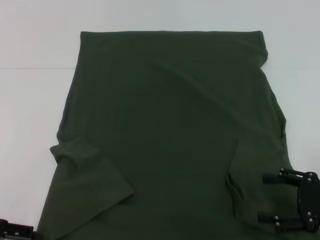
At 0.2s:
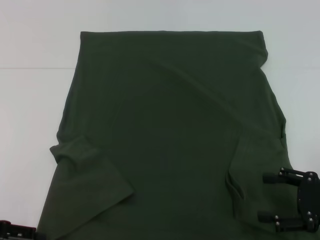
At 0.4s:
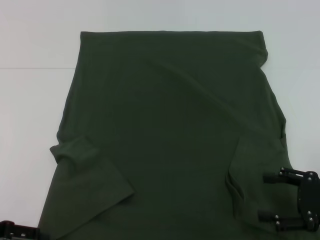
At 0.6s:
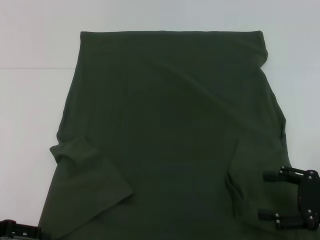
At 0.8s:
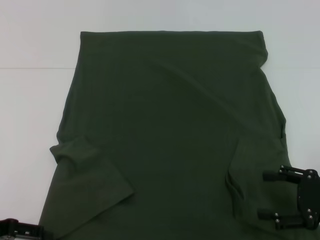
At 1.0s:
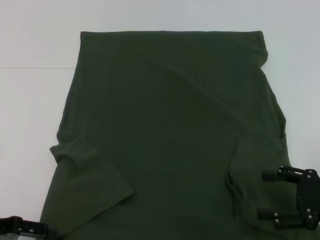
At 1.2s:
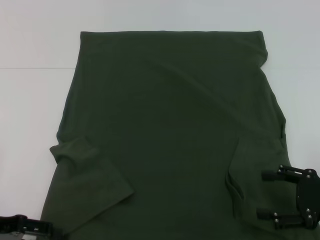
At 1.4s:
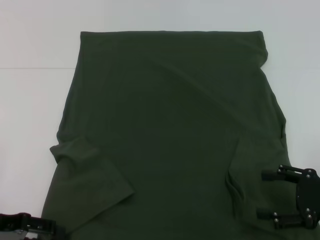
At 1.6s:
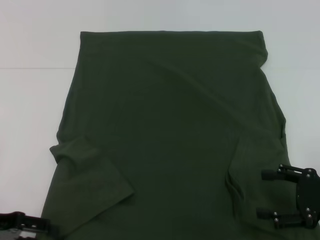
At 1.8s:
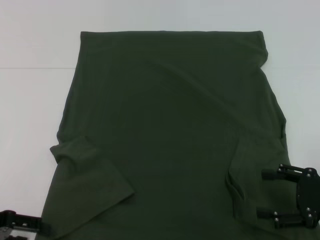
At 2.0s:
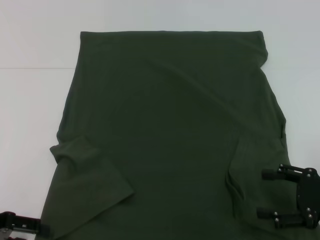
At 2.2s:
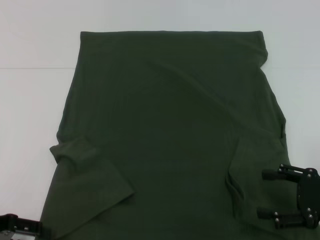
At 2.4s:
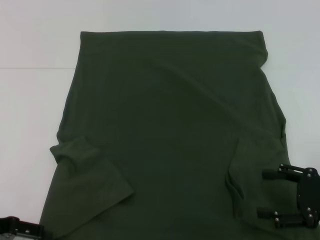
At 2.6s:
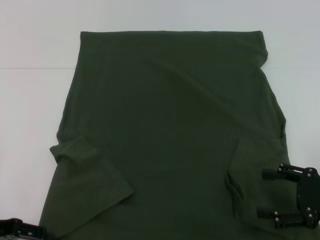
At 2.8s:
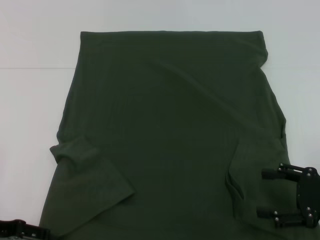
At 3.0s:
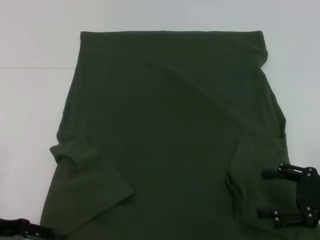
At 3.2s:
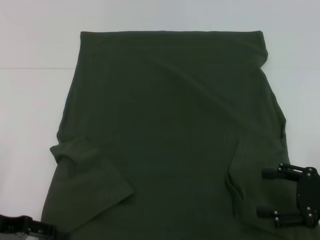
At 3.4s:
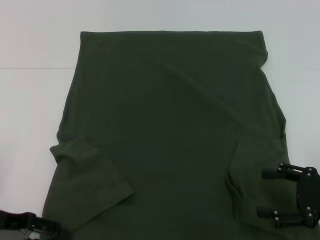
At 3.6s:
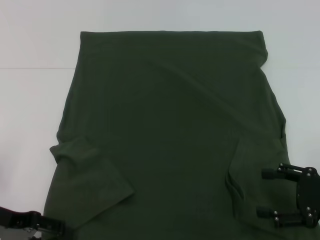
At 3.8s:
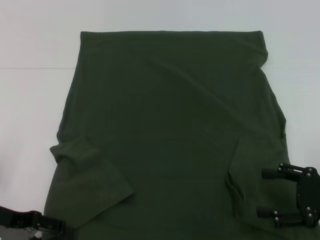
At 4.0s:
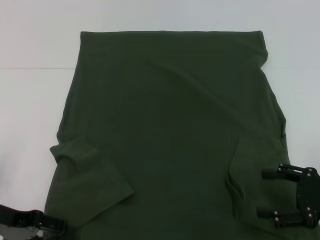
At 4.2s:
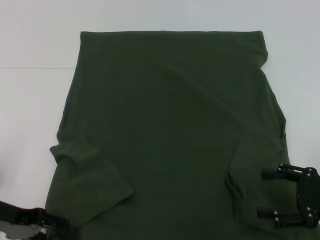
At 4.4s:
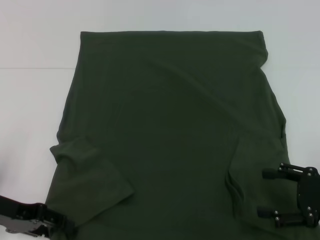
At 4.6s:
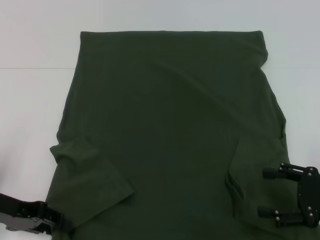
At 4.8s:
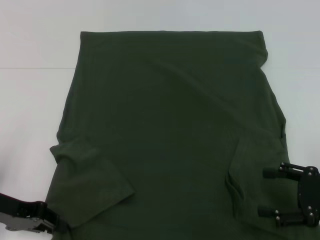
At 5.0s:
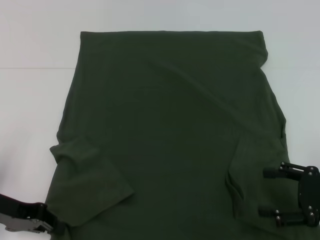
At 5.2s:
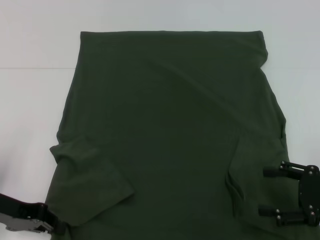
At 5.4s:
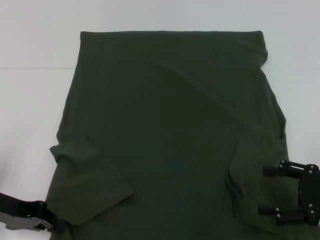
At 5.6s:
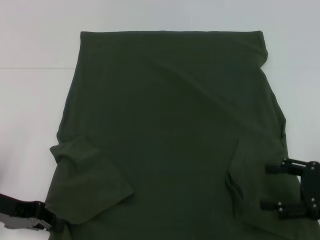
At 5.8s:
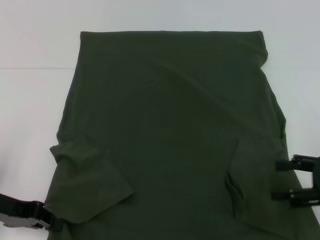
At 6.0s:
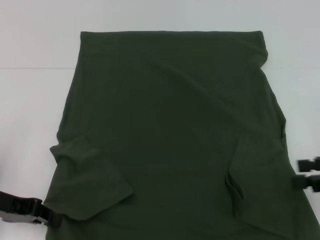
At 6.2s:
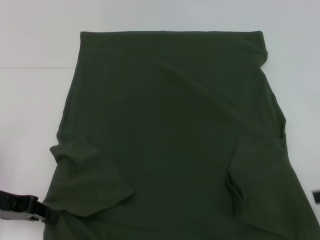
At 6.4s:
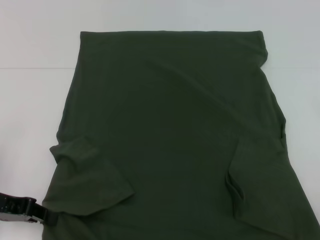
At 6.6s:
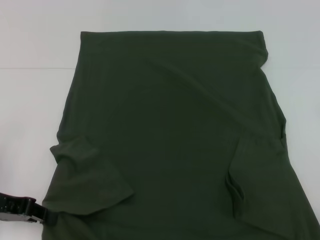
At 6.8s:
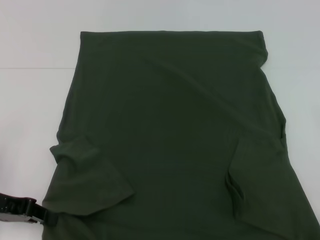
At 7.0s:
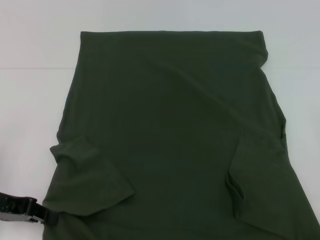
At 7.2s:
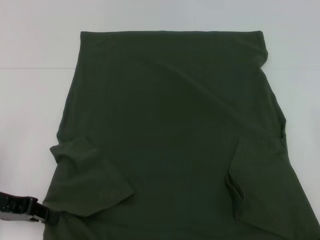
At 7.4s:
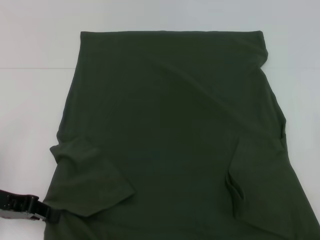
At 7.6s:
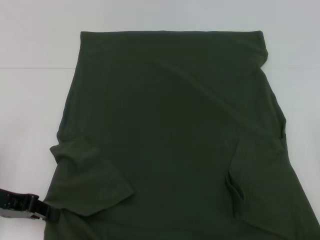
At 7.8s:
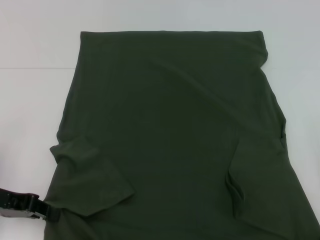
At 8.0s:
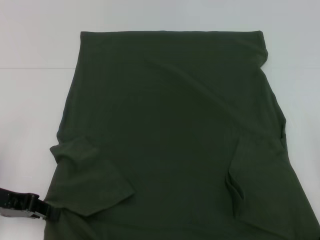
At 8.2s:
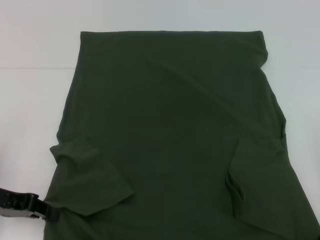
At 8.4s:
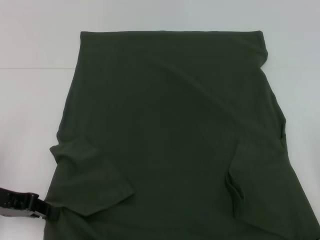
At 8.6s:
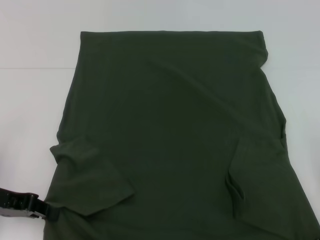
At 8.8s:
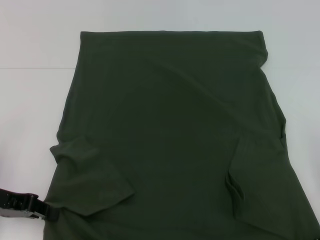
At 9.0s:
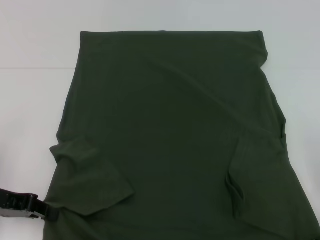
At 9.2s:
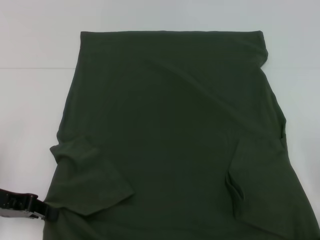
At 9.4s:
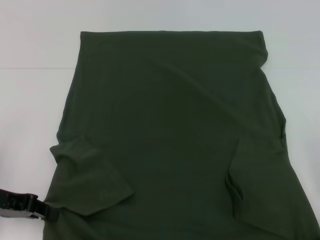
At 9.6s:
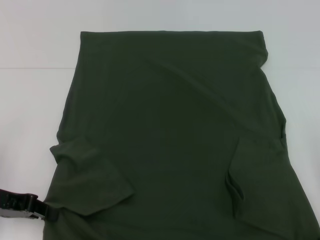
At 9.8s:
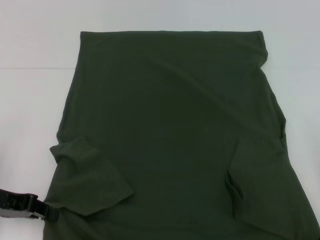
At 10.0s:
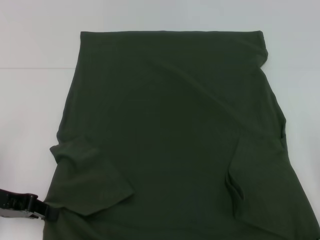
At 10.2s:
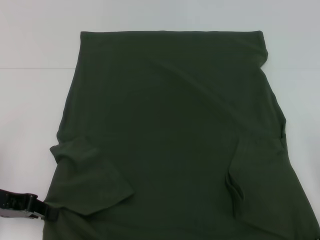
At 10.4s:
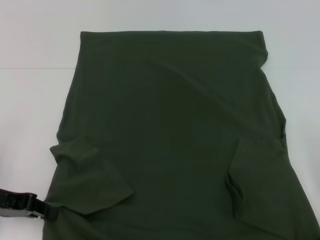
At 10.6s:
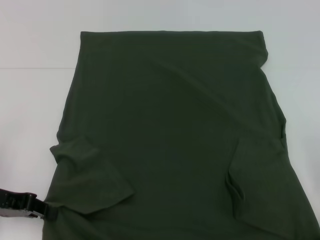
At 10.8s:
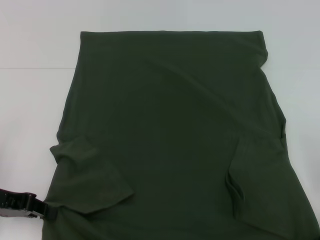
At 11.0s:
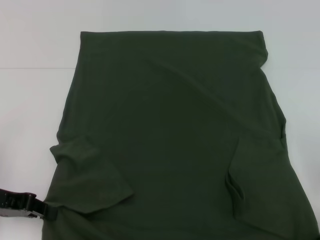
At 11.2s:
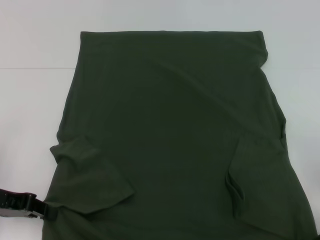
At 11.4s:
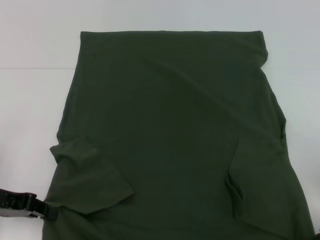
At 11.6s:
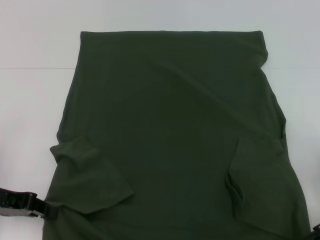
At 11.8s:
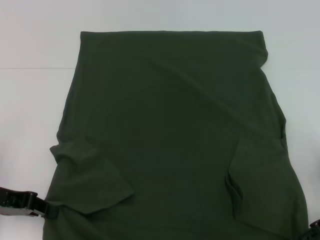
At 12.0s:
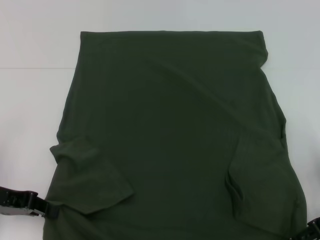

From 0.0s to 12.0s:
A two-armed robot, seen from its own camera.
Step, from 0.0s to 5.4s: Grab the bottom left corner with your left hand.
From 0.0s to 1.6s: The grippers make only small movements.
From 1.6s to 3.0s: The two grippers keep their place.
From 3.0s to 4.4s: The grippers stay close to where they were, moving slightly.
From 4.4s to 6.0s: The right gripper is displaced upward by approximately 5 cm. Meanwhile the left gripper closes.
From 9.0s to 10.4s: Neither gripper changes place.
From 10.4s to 12.0s: The grippers stay close to where they were, moving slightly.

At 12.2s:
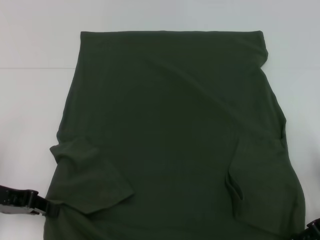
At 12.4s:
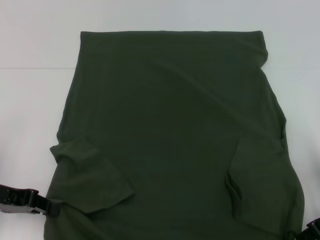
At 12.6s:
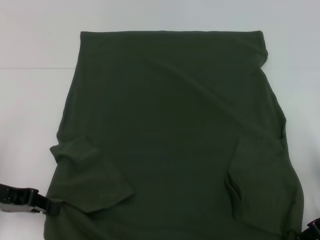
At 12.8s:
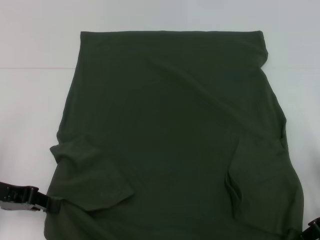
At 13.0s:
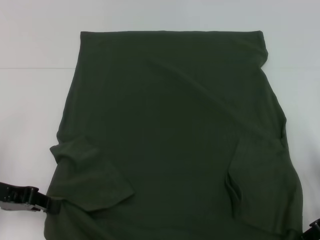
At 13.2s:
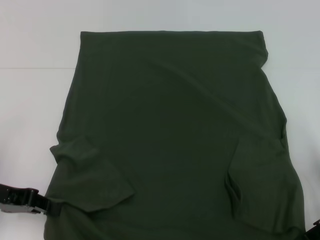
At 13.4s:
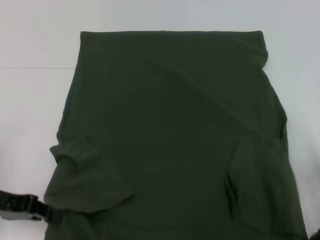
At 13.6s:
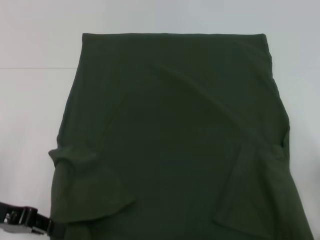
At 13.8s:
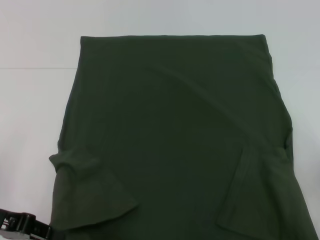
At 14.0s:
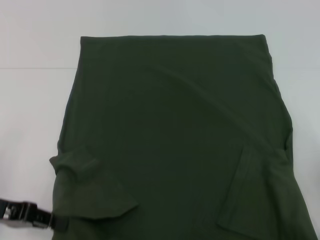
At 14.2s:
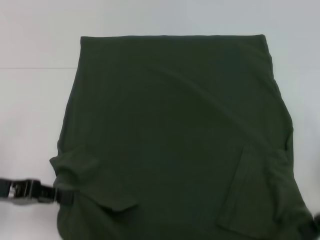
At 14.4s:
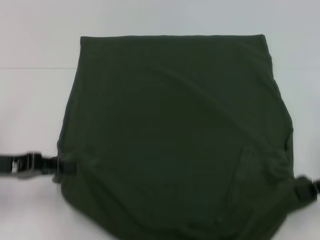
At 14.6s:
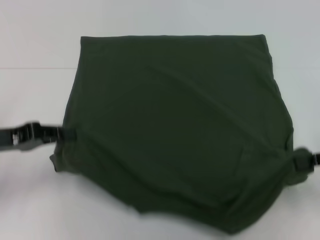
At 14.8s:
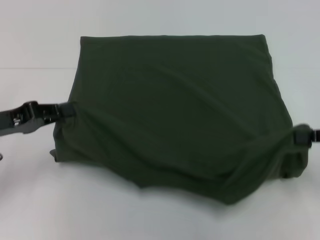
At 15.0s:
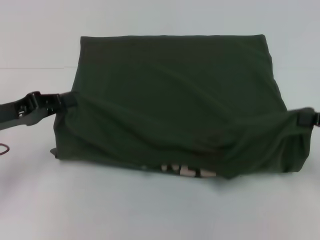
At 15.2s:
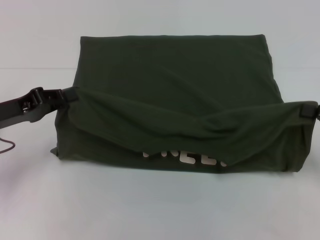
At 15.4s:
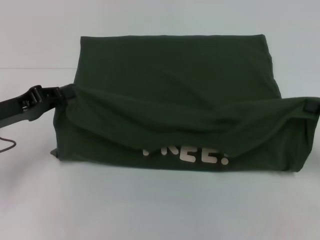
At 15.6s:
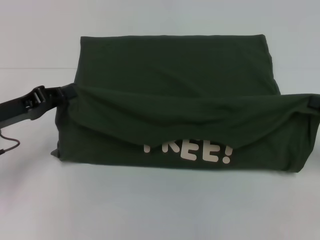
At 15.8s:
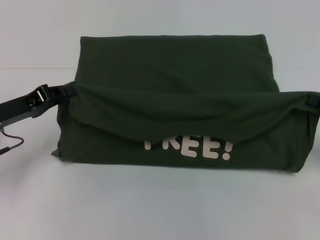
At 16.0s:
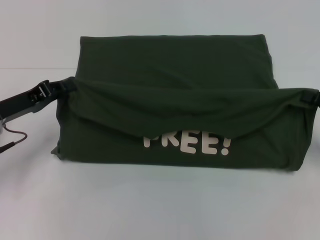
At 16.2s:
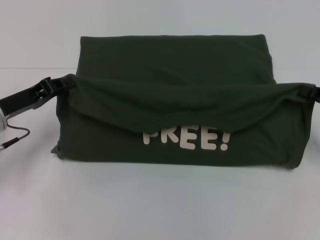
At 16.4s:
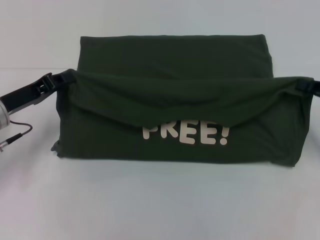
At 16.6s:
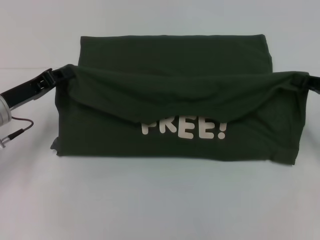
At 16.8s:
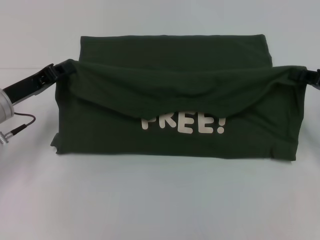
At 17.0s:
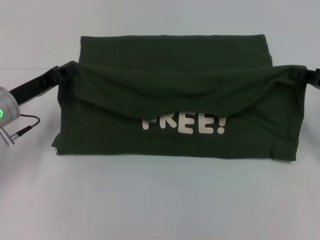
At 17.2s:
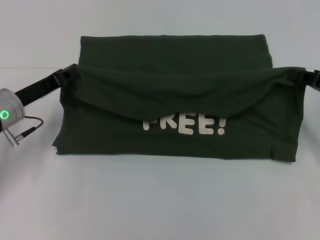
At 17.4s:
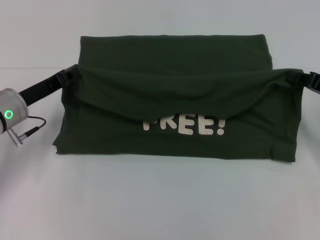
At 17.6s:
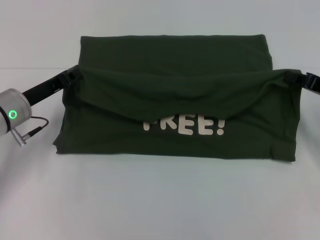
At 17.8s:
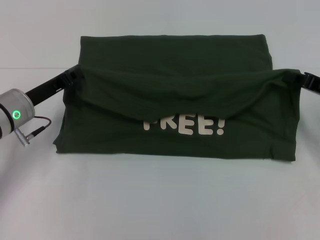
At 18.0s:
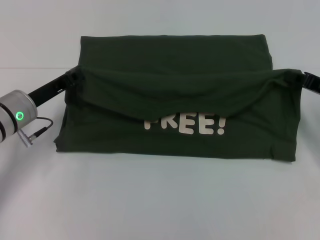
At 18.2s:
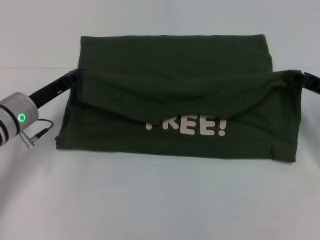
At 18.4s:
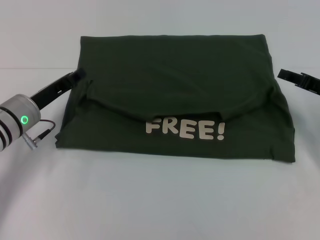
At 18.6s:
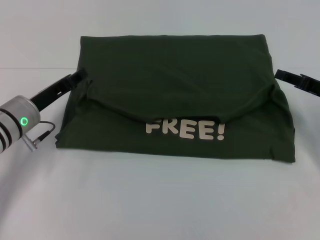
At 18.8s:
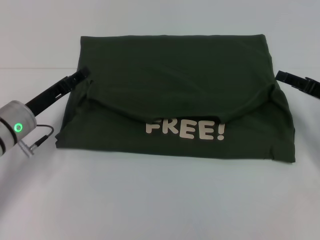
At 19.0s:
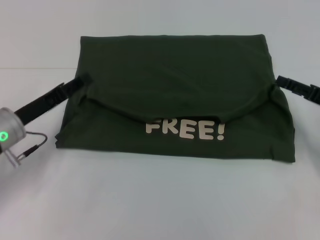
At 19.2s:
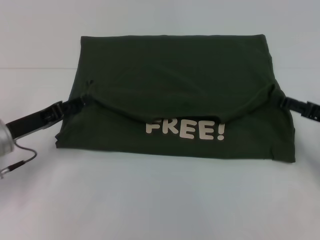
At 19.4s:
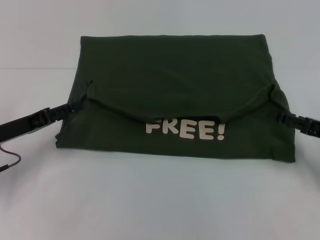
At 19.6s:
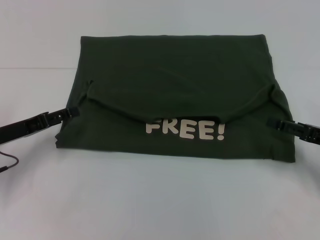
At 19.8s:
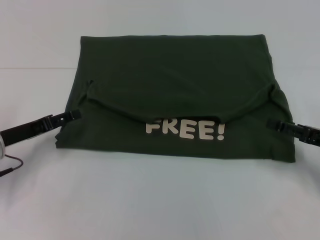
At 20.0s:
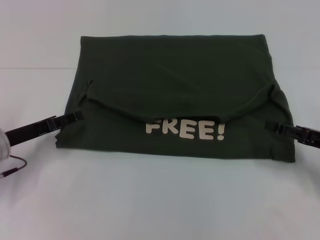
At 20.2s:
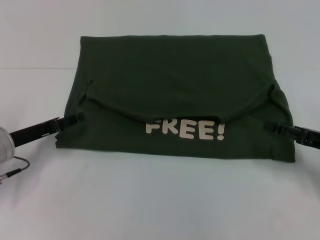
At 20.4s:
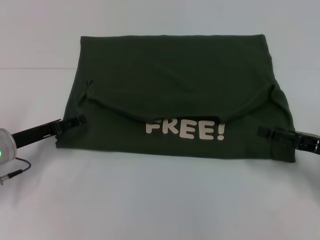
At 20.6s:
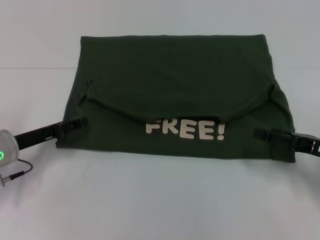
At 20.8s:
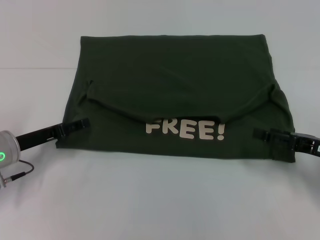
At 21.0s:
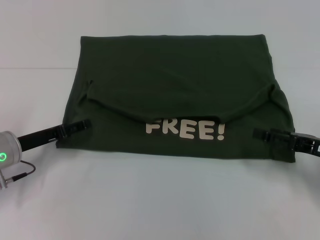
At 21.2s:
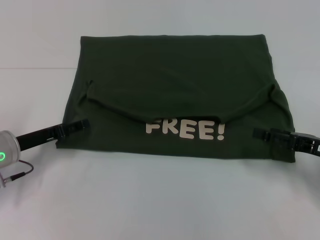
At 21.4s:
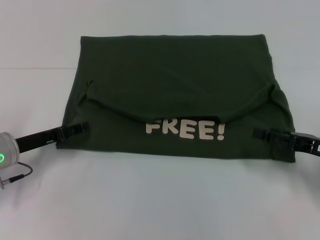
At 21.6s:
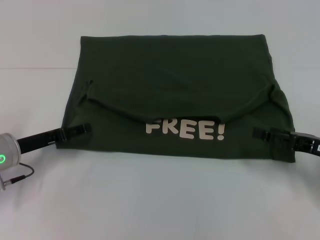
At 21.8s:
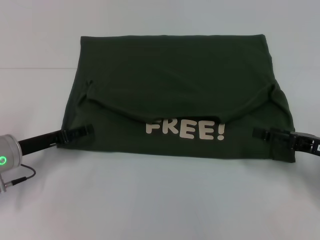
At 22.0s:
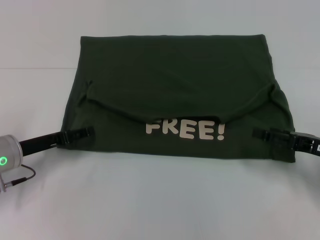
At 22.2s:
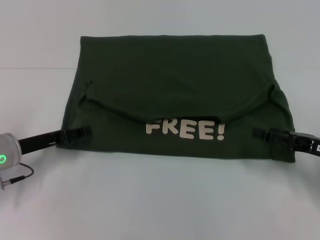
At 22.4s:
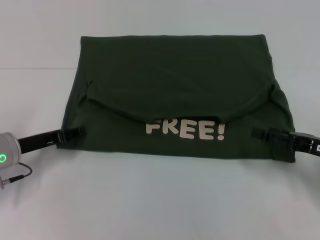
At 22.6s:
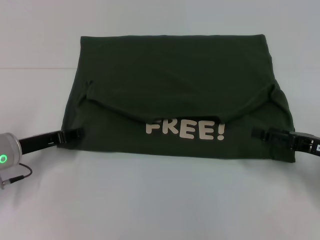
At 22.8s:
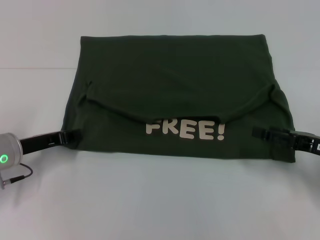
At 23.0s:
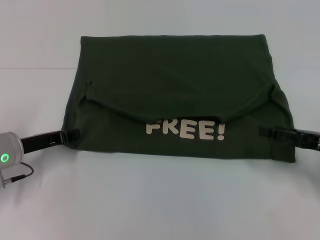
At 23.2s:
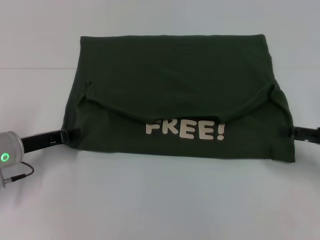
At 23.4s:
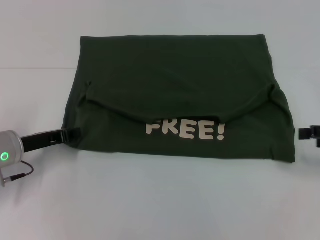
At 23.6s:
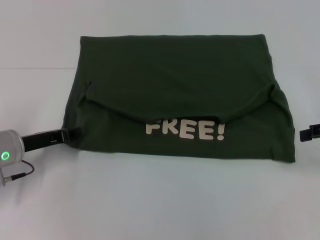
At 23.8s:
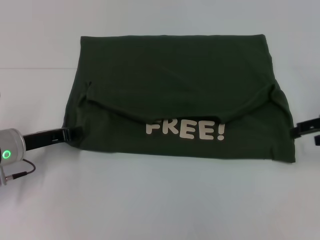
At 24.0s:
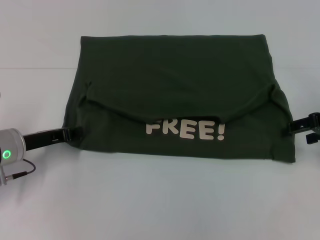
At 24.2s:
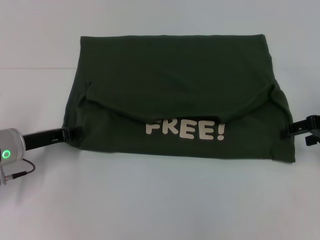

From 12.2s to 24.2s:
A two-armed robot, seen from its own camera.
Step, from 13.2s to 18.4s: Fold the clothes with your left hand.
Step, from 13.2s to 18.4s: Fold the clothes with your right hand.
From 12.2s to 13.8s: The right gripper closes its fingers.
From 13.8s to 15.2s: The right gripper moves approximately 5 cm, while the left gripper goes some 5 cm forward.
From 15.2s to 16.6s: The right gripper shifts by approximately 5 cm.
From 16.6s to 18.2s: The grippers make only small movements.
From 18.2s to 19.8s: The left gripper travels to the left by approximately 5 cm, and opens, while the right gripper shifts approximately 10 cm backward, and opens its fingers.
From 19.8s to 22.6s: The grippers make only small movements.
From 22.6s to 24.2s: The left gripper closes. The right gripper shifts roughly 10 cm forward and upward.
